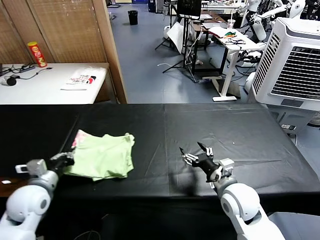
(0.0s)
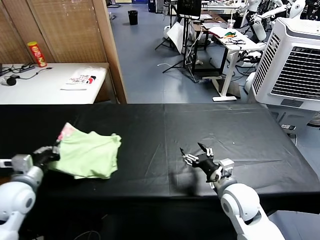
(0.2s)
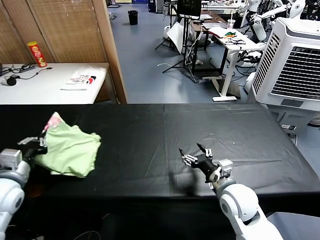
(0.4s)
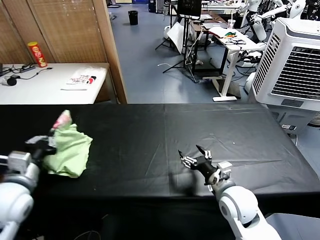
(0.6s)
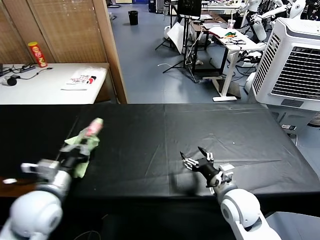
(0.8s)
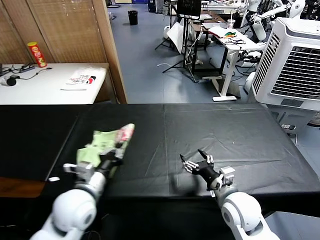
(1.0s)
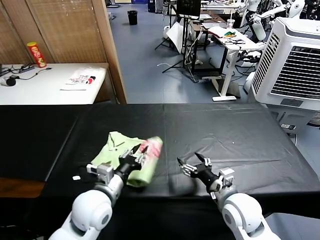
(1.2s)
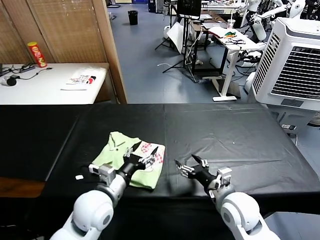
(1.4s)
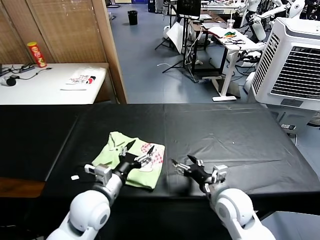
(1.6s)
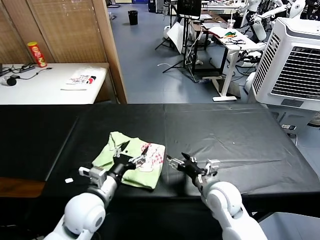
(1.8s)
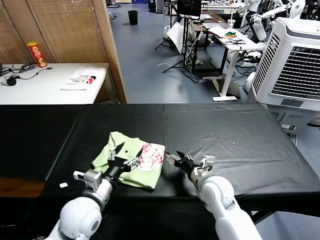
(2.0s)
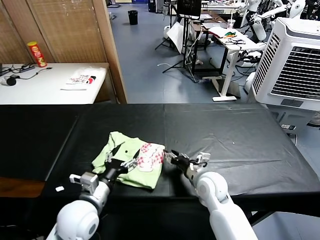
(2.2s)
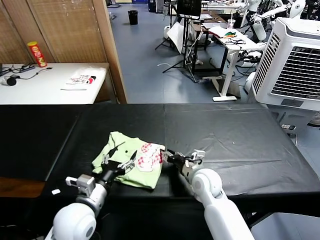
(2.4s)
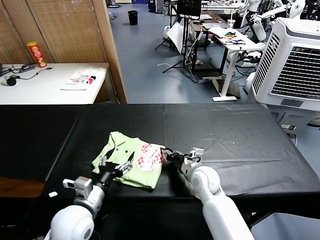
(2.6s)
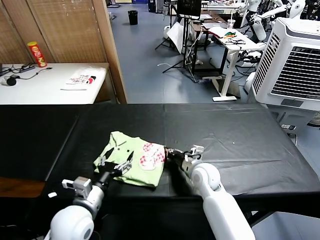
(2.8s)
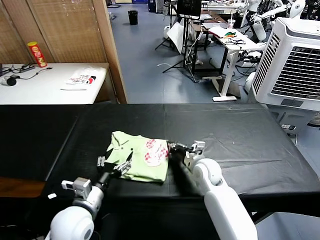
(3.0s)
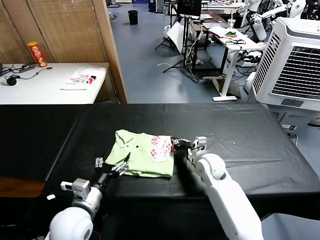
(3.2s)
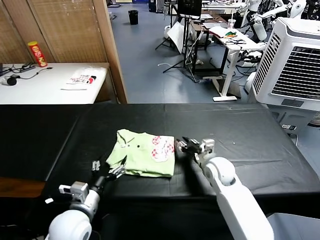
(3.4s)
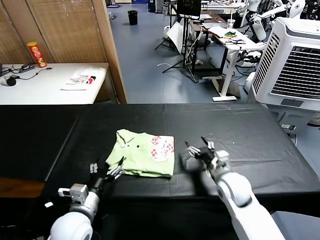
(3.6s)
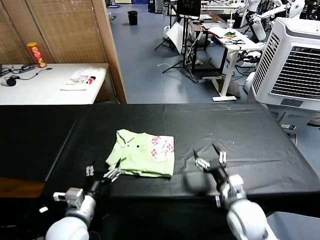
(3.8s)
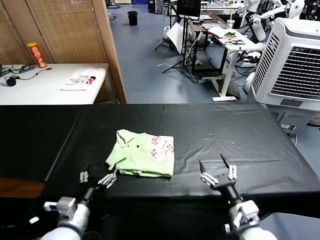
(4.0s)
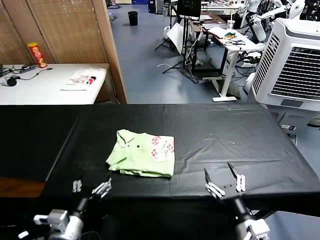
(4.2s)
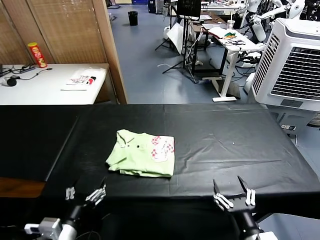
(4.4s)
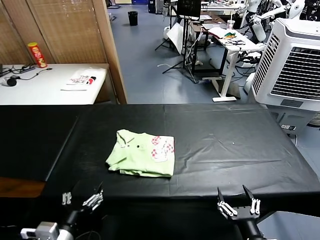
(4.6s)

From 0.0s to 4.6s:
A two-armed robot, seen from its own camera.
Task of the whole recording: fold and organize the clothes.
Step, from 1.4s to 3.2s: Drag the clothes to the center of the table.
From 0.0s to 1.6s: The left gripper shifts roughly 20 cm to the right, and opens its fingers.
From 1.6s to 3.0s: The right gripper goes approximately 15 cm forward and to the left, and closes, while the left gripper ends up some 5 cm from where it was.
From 3.0s to 4.6s: The left gripper is displaced backward by about 10 cm; the right gripper is displaced backward by some 30 cm, and opens.

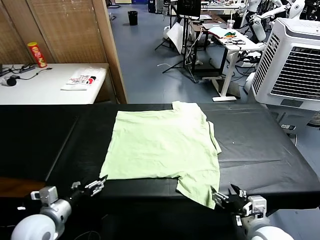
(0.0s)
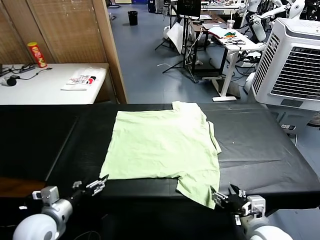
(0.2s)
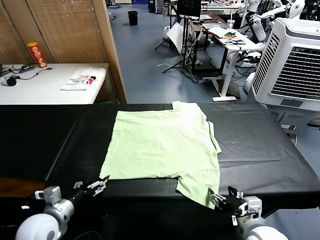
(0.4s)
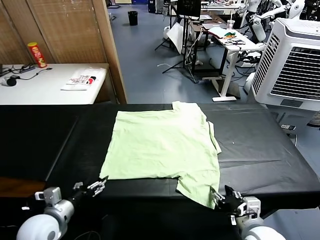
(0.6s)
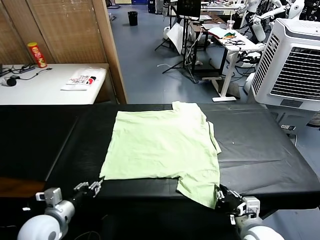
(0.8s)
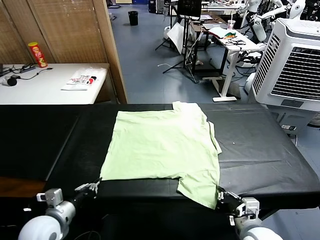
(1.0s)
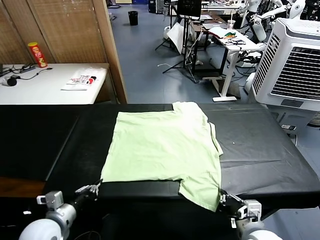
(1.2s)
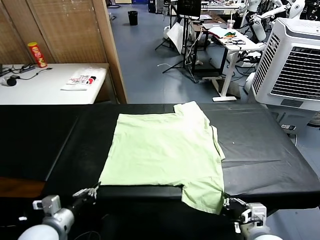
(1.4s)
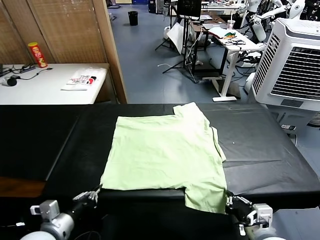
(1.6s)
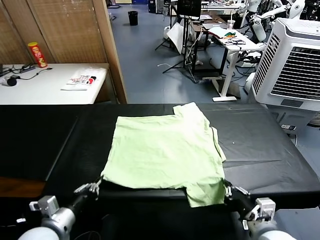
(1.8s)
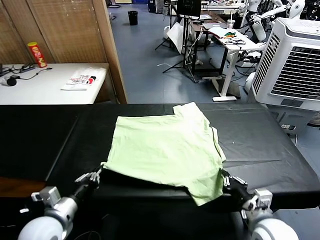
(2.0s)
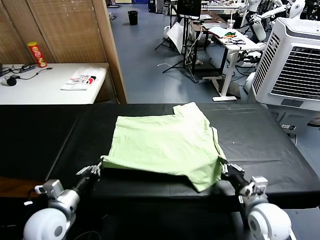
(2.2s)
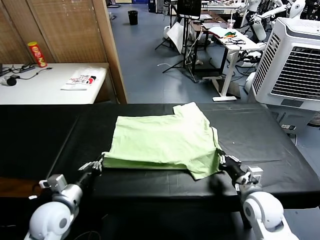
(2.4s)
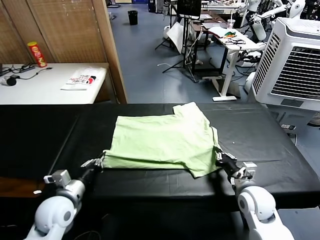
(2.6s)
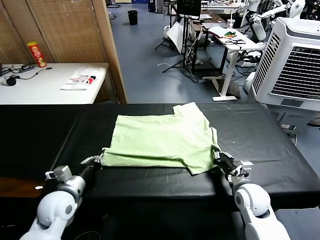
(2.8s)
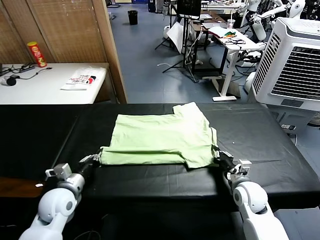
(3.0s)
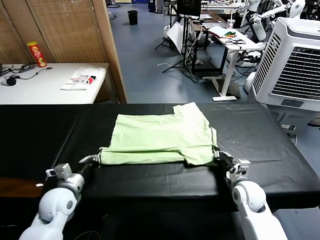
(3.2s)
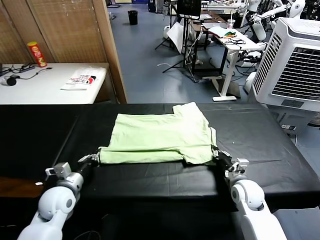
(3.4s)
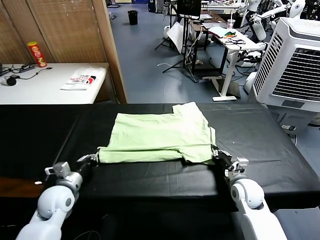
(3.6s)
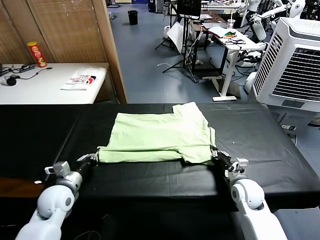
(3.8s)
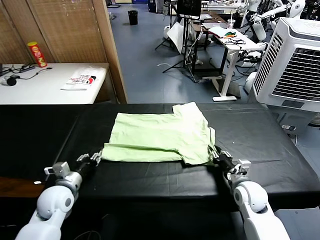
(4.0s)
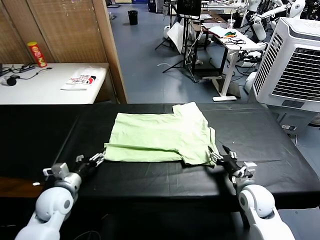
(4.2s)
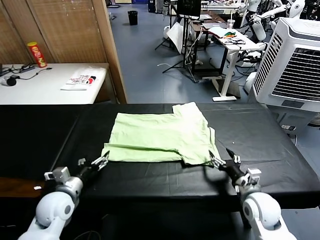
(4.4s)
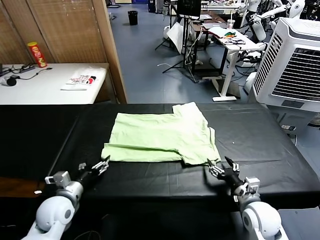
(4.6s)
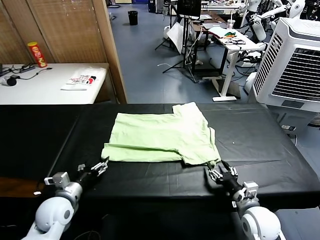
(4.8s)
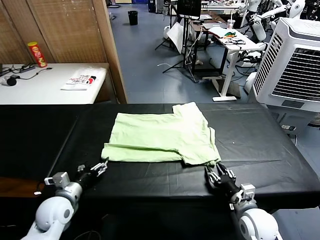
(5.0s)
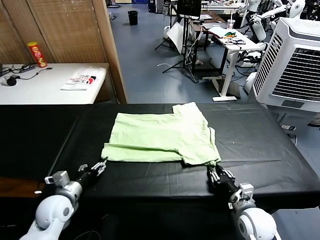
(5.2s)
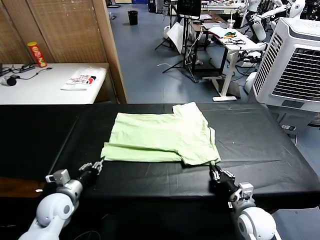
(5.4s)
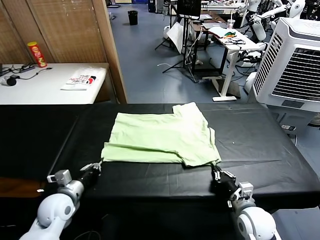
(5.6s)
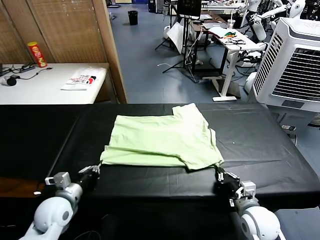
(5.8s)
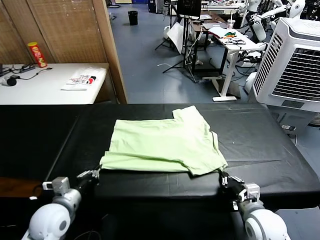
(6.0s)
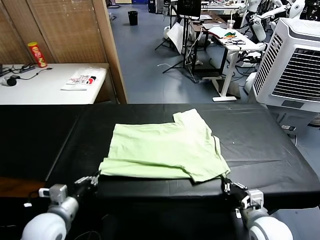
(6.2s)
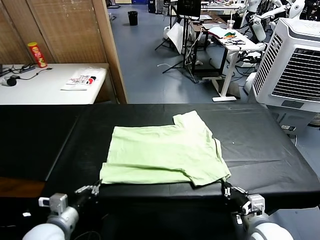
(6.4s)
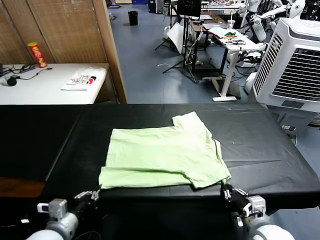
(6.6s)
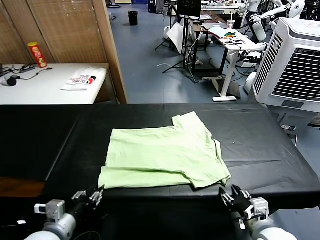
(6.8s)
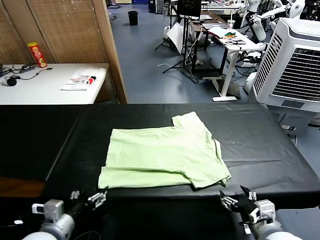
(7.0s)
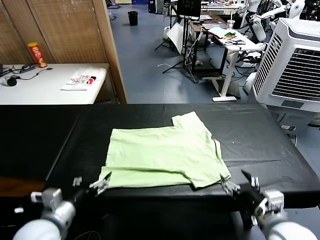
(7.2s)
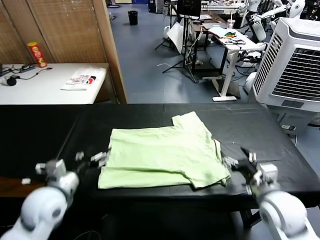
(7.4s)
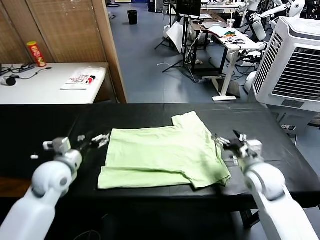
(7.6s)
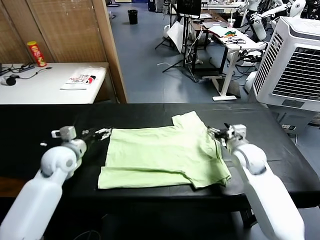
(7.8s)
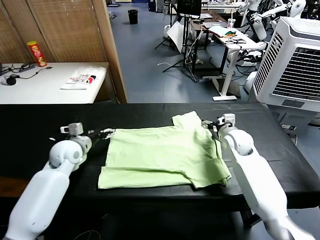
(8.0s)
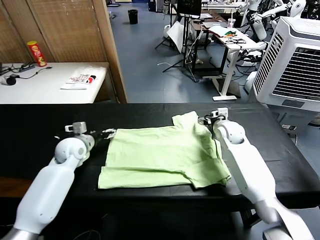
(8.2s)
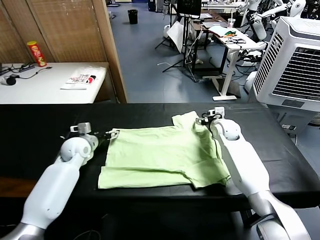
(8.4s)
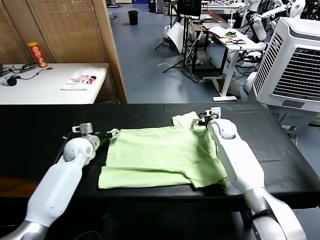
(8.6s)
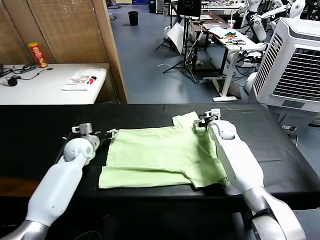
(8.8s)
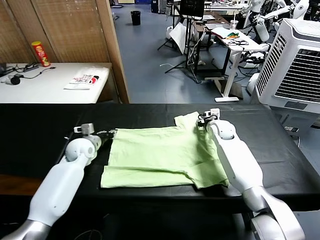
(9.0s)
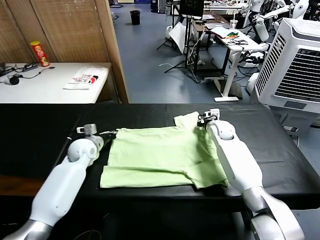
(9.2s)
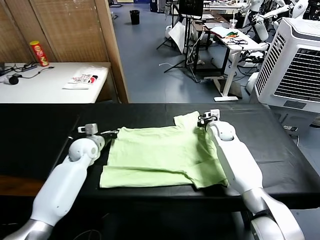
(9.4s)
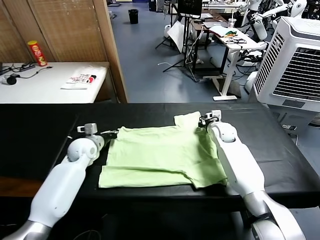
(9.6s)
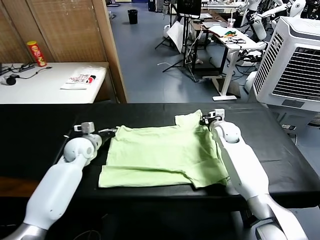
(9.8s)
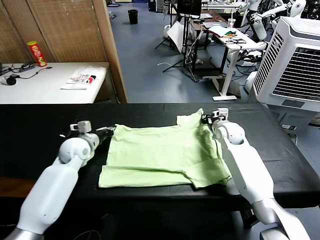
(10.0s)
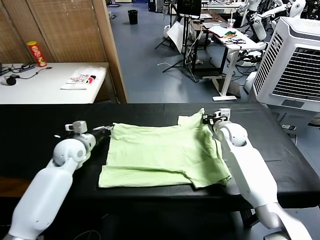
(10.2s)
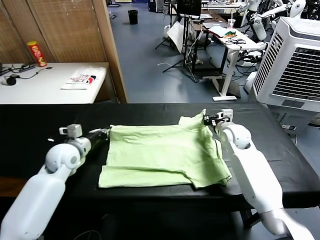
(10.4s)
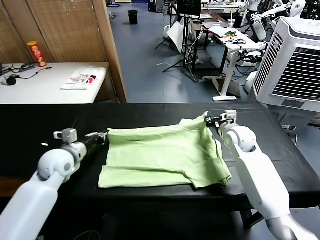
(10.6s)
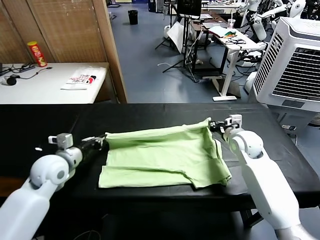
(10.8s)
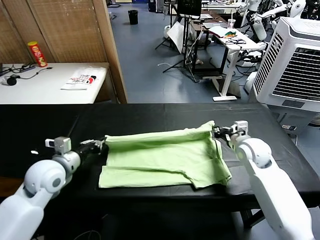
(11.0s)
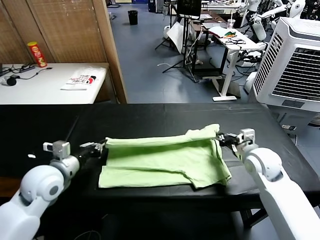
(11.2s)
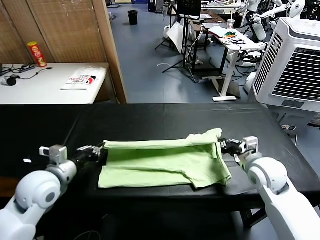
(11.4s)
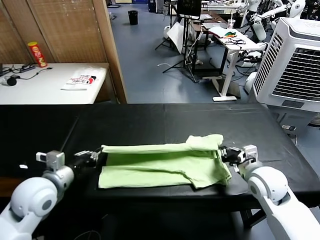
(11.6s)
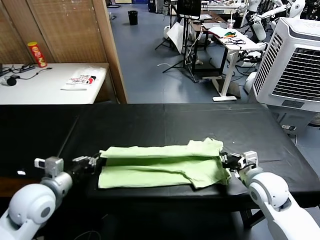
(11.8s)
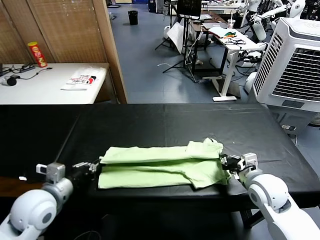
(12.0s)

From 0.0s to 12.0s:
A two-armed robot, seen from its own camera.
Task of the whole recording: fold and organize the clothes.
Step, from 0.0s to 1.0s: use both grippers simultaneously to clamp the lower edge of the clothing fabric.
Step, from 1.2s to 4.2s: use both grippers to drag the lower edge of the fabric forward and fold it over the upper edge.
Step, from 4.4s to 7.0s: Drag the clothes downward with both gripper.
Step, from 7.2s to 9.2s: use both grippers simultaneously to clamp the upper edge of the clothing fabric.
From 1.6s to 3.0s: The left gripper travels forward by roughly 10 cm. Meanwhile the right gripper shifts some 20 cm forward and downward.
From 3.0s to 4.4s: The left gripper opens up; the right gripper travels backward by approximately 10 cm, and opens its fingers.
From 4.4s to 6.0s: The left gripper changes place by some 5 cm, and closes up, while the right gripper moves about 5 cm, and closes.
From 6.0s to 7.6s: The left gripper is displaced forward and upward by about 15 cm, and opens up. Meanwhile the right gripper moves forward, approximately 20 cm, and opens its fingers.
From 7.6s to 9.0s: The left gripper travels forward and downward by roughly 15 cm, and closes its fingers. Meanwhile the right gripper shifts some 15 cm forward, and closes up.
From 9.0s to 10.4s: Both grippers move backward and upward, some 10 cm.
From 10.4s to 12.0s: Both grippers move backward, approximately 15 cm.

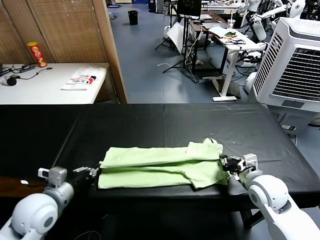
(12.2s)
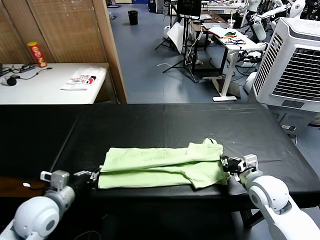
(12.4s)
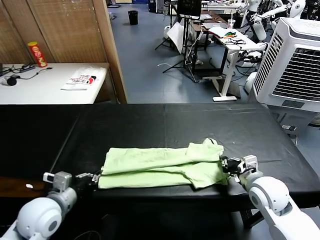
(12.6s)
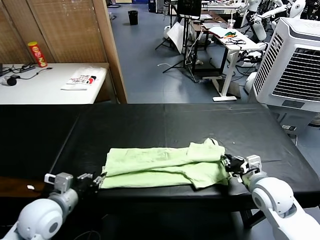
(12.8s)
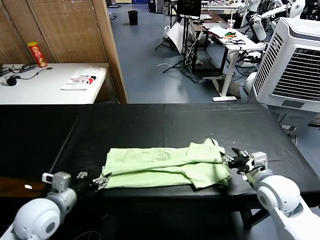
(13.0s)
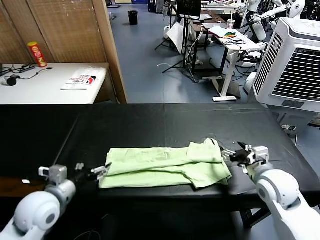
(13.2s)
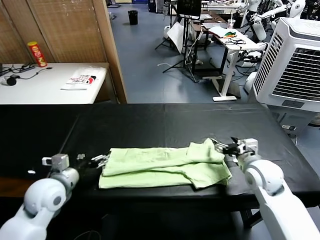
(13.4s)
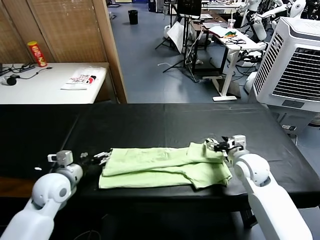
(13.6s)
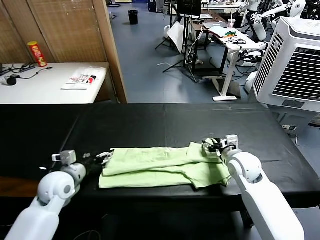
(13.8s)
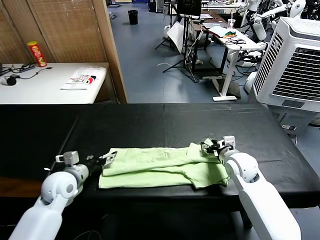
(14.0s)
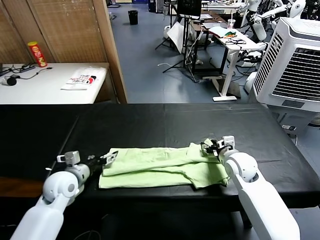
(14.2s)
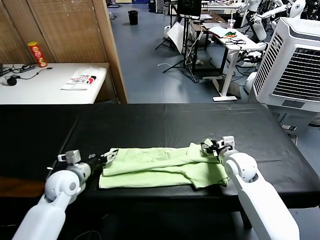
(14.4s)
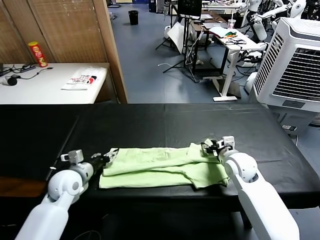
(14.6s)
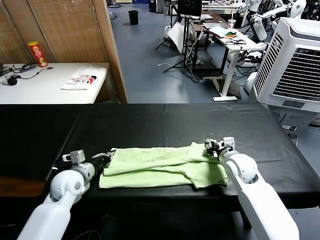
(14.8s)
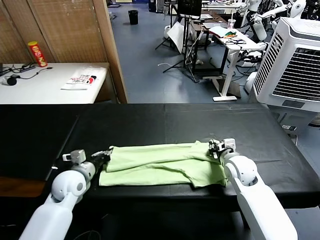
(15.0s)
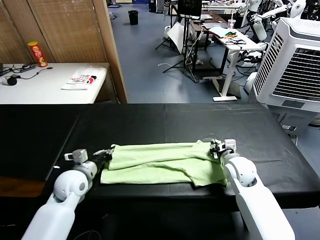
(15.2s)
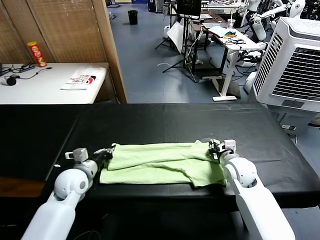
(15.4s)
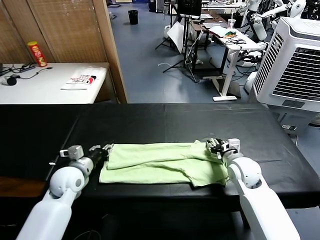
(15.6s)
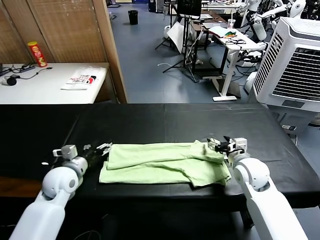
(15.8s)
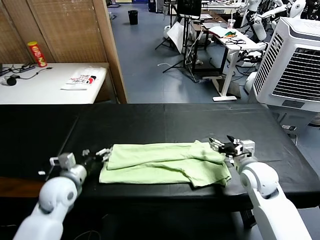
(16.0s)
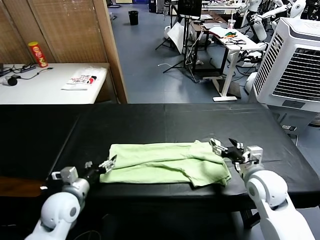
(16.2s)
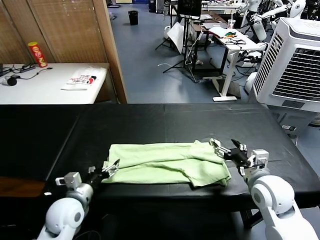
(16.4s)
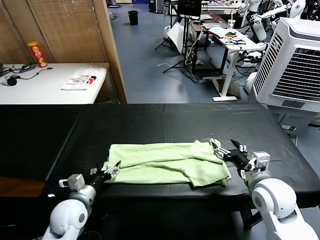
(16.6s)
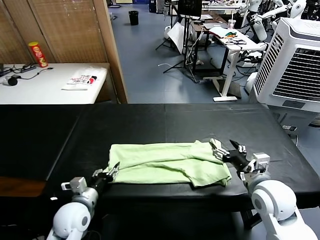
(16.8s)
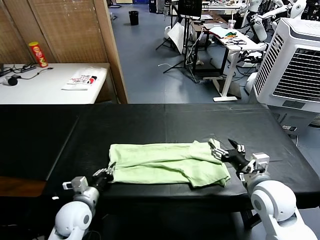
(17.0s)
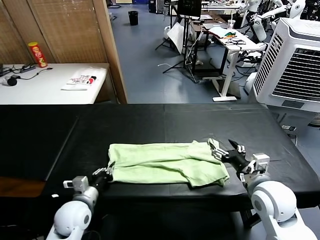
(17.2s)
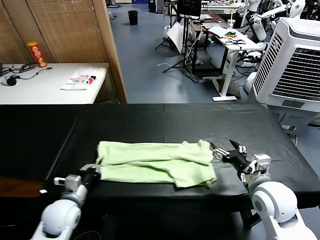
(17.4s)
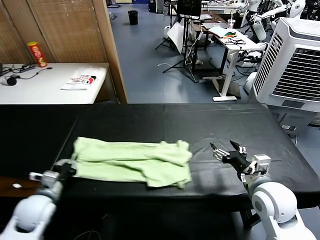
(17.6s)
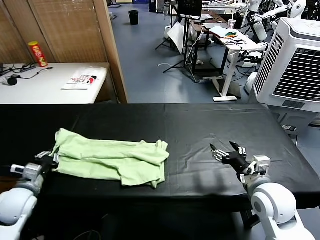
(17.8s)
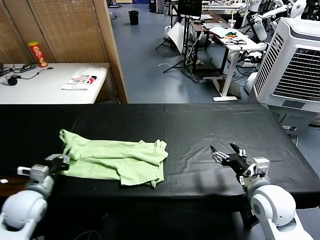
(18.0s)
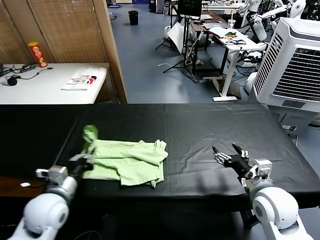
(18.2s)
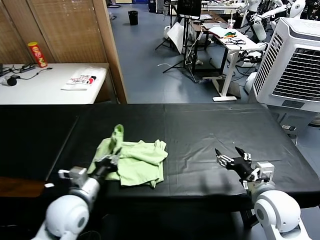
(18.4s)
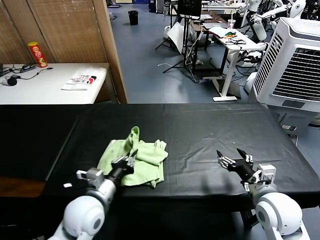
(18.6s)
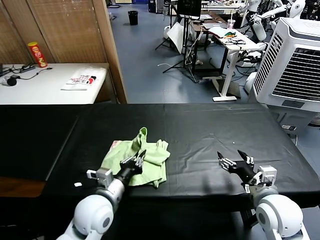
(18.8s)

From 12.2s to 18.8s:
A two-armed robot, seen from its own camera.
Task of the whole recording: fold and organize the clothes.
Step, from 13.2s to 17.0s: use the left gripper to clamp the left edge of the fabric.
From 12.2s to 13.8s: The two grippers go approximately 10 cm forward. The left gripper opens its fingers; the right gripper opens its fingers.
From 13.8s to 15.4s: The right gripper closes up, while the left gripper closes.
From 15.4s to 17.2s: The right gripper heads backward and upward, covering approximately 15 cm, and opens; the left gripper goes roughly 10 cm backward, and opens, then closes once more.
From 17.2s to 18.8s: The left gripper shifts about 10 cm to the right and upward.
